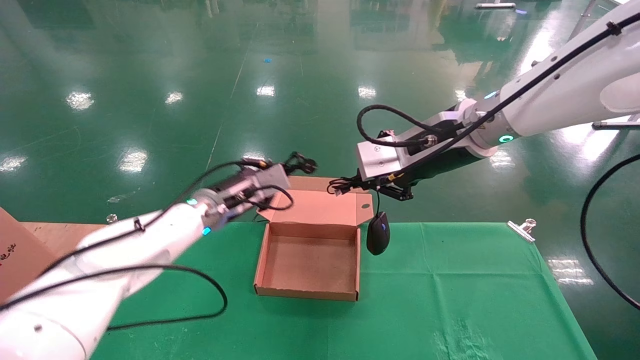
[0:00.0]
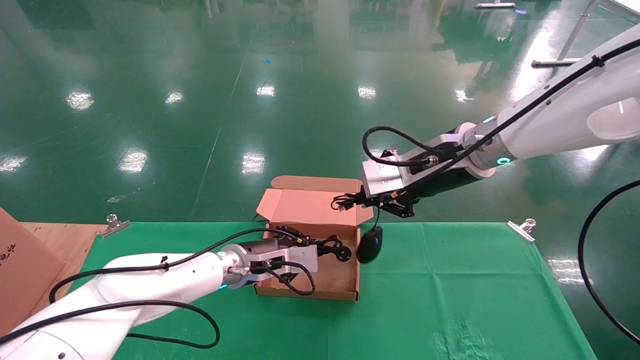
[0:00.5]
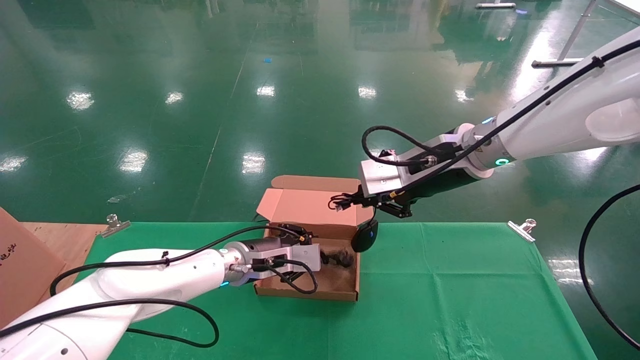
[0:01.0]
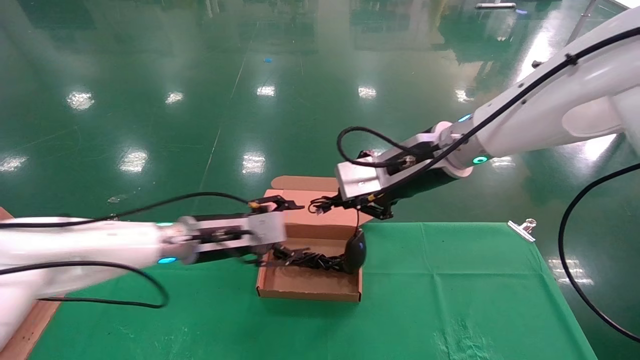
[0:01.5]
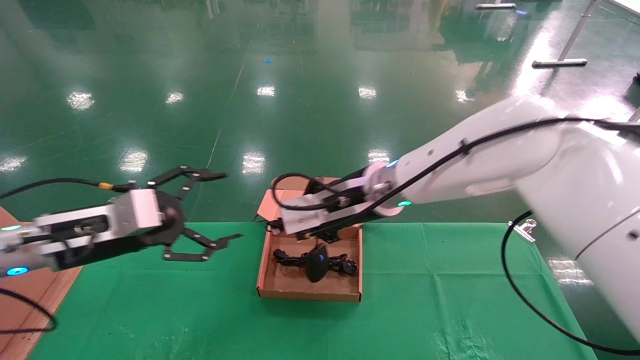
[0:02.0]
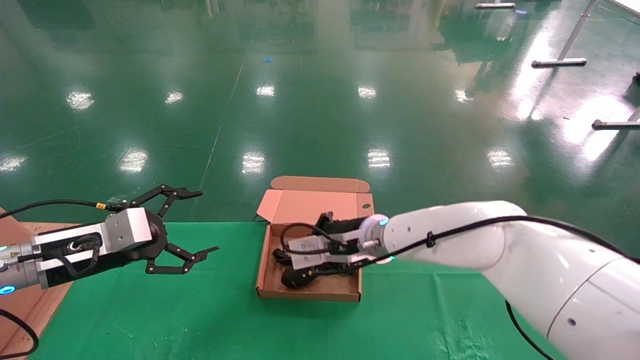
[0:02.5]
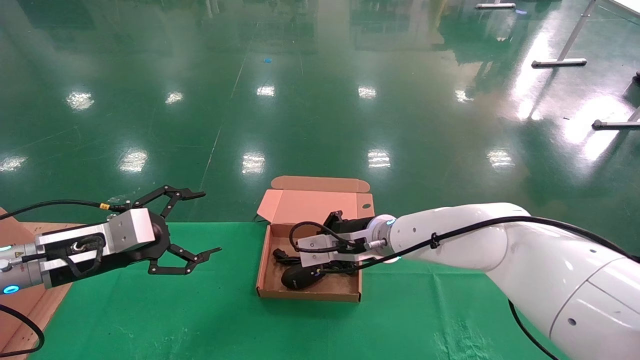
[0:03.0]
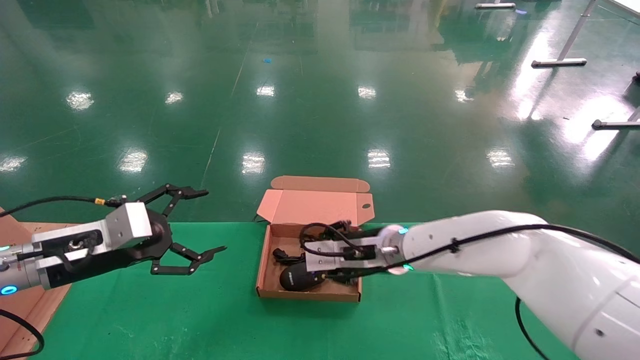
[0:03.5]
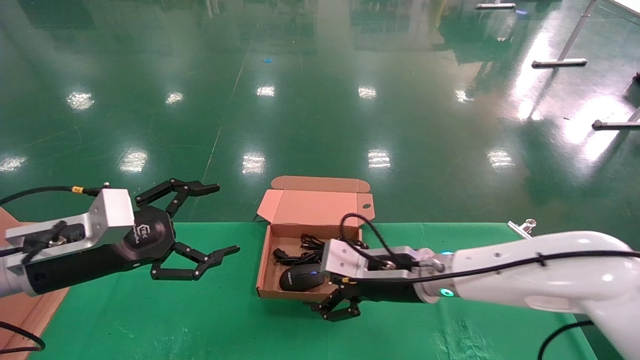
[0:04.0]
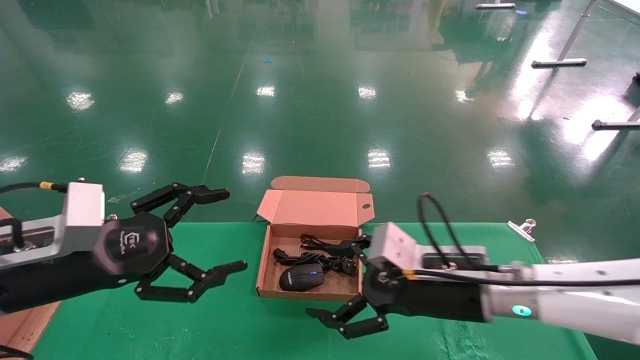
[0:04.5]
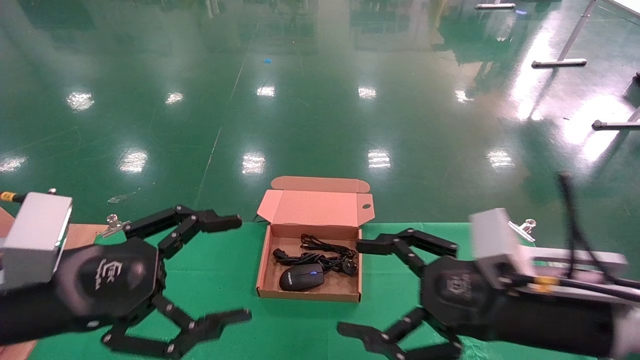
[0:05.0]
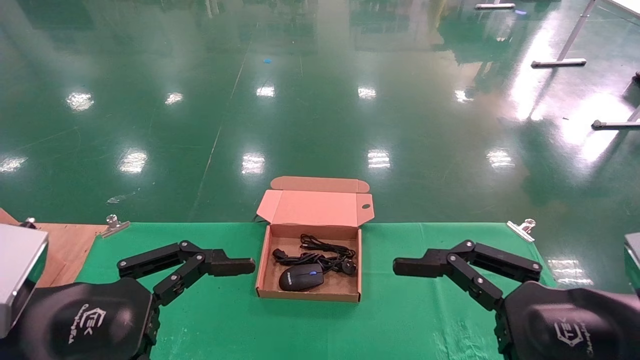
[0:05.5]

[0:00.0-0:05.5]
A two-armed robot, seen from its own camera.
Step, 0:00.0 to 0:04.5: Place the mouse and power cord into the box.
0:00.0 to 0:02.0: The left gripper moves to the left and backward, some 20 cm, and opens up, while the right gripper travels to the left and downward by about 15 cm.
0:02.0 to 0:03.5: The right gripper goes approximately 10 cm downward.
0:03.5 to 0:05.5: The left gripper moves backward and to the right, about 20 cm, while the right gripper goes roughly 30 cm backward and to the right, and opens.

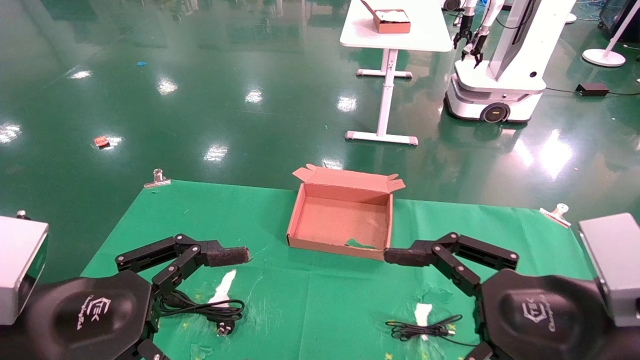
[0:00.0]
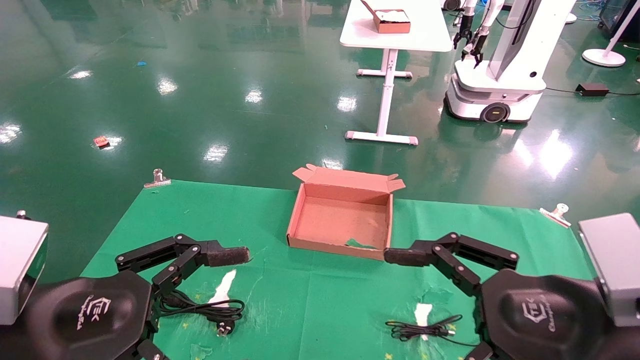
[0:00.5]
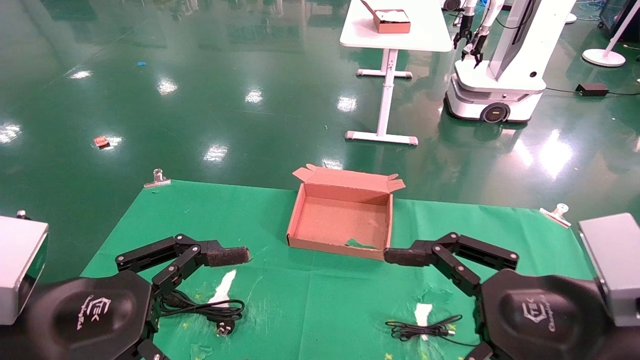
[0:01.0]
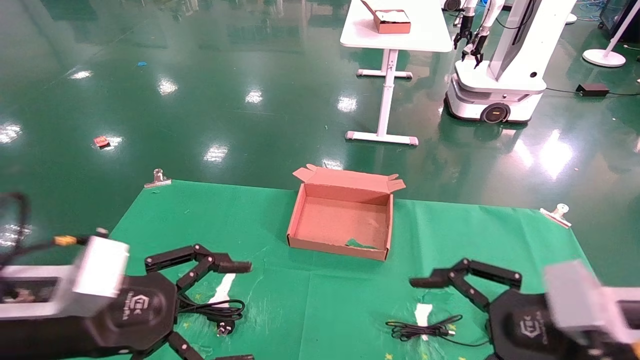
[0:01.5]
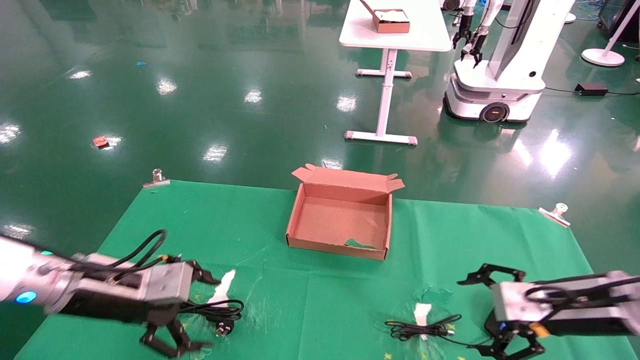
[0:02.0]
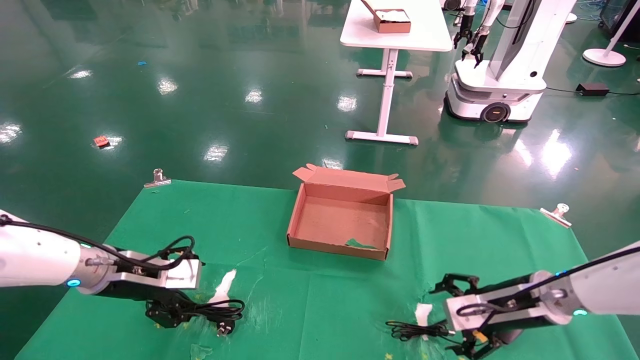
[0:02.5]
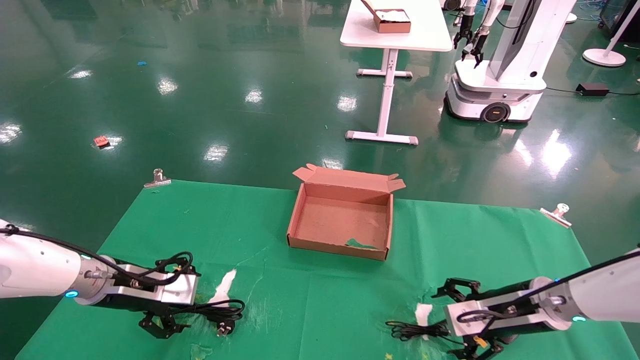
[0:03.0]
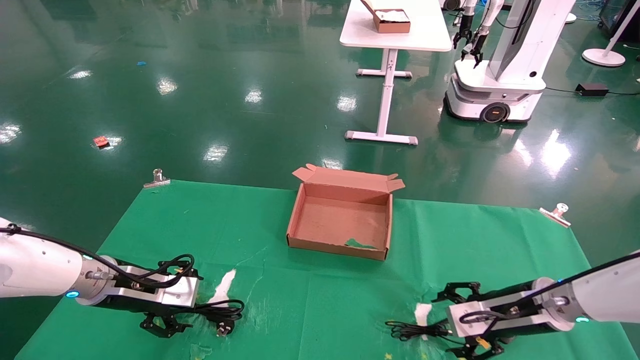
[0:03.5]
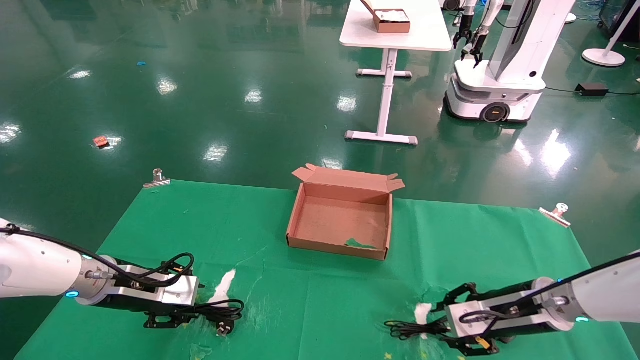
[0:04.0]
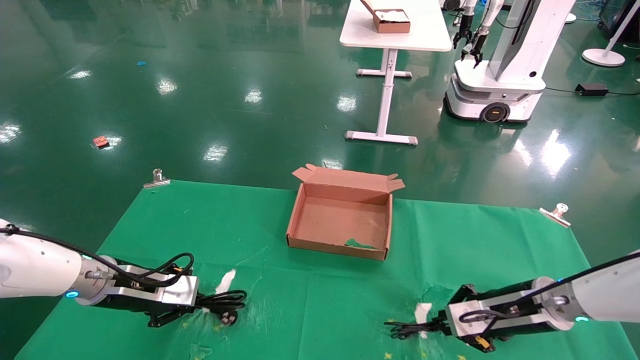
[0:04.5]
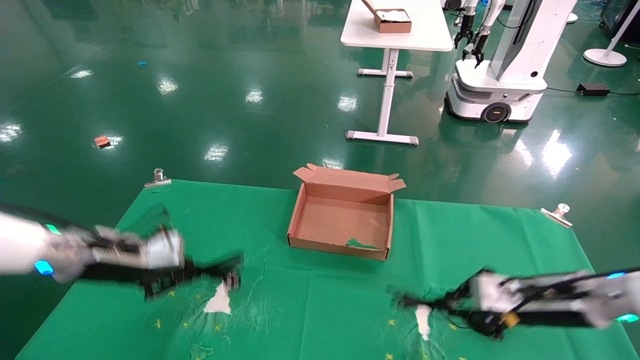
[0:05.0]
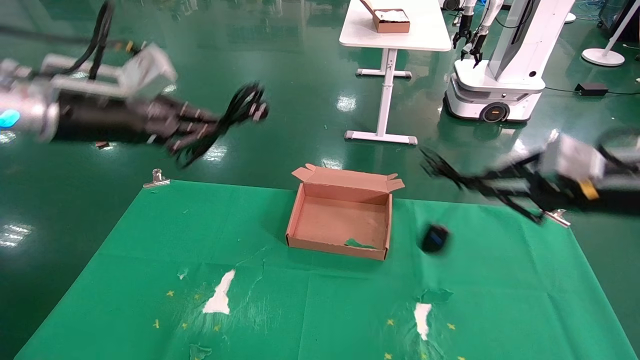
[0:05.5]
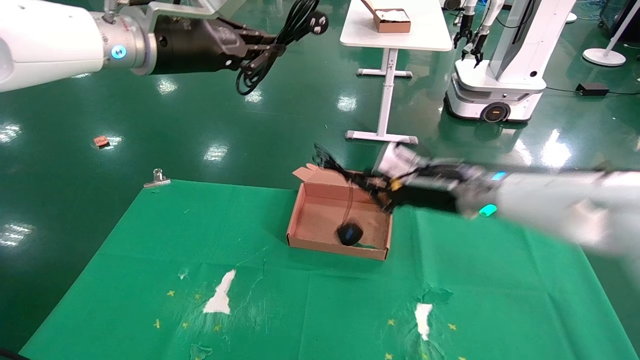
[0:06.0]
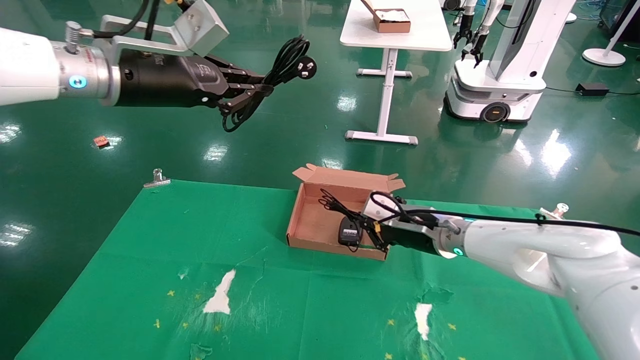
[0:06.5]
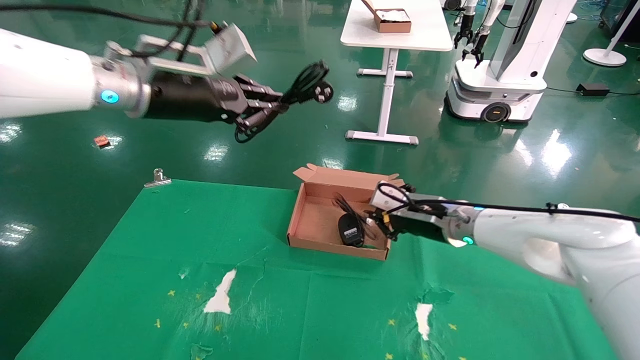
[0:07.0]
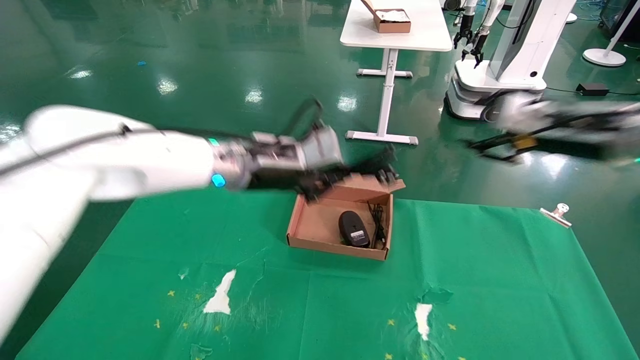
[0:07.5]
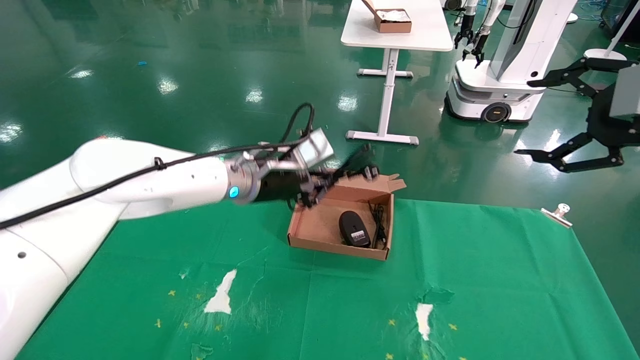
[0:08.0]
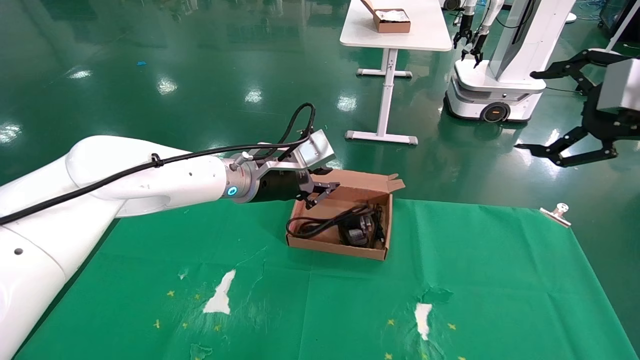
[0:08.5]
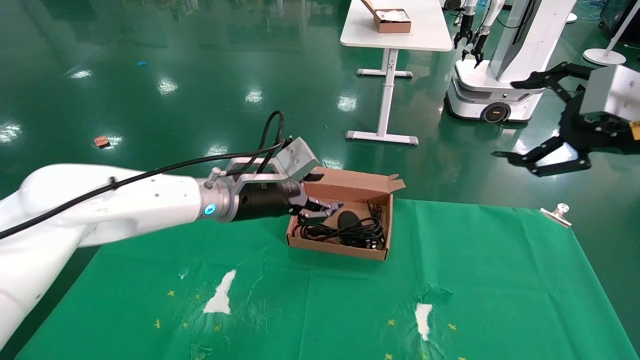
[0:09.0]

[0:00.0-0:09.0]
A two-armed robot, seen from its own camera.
Step, 0:02.0 to 0:05.5: Grab and lift both the mouse and power cord from the accessory packaging area at the same time.
0:00.0 to 0:02.0: The left gripper is displaced forward by about 20 cm. Meanwhile the right gripper moves forward, to the right and downward, approximately 20 cm.
0:02.0 to 0:04.5: Both grippers travel together forward, roughly 5 cm. The left gripper closes its fingers; the right gripper closes up.
0:04.5 to 0:07.0: The right gripper heads upward, to the left and forward, covering about 15 cm; the left gripper goes about 30 cm upward and to the right.
0:07.0 to 0:09.0: The right gripper travels backward, to the right and upward by approximately 30 cm, and opens. Meanwhile the left gripper shifts approximately 15 cm downward and to the right, and opens up.

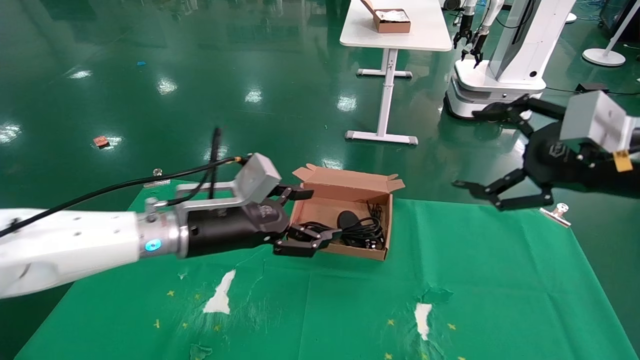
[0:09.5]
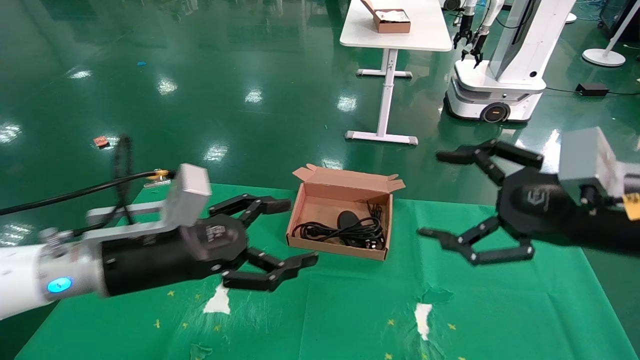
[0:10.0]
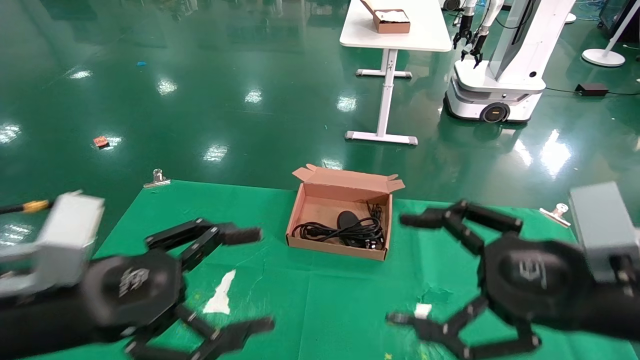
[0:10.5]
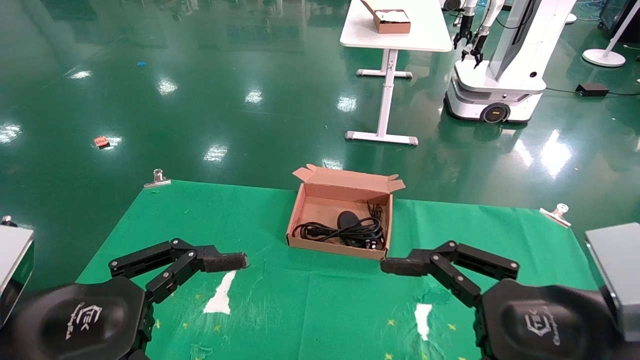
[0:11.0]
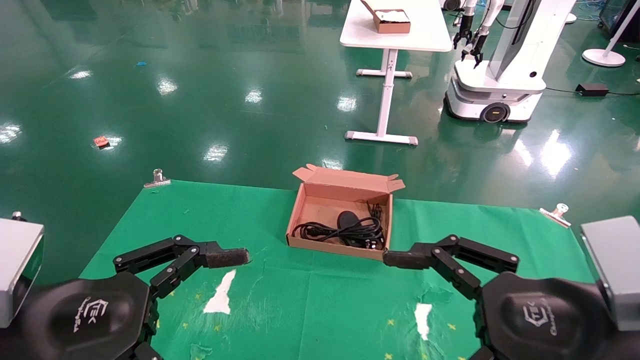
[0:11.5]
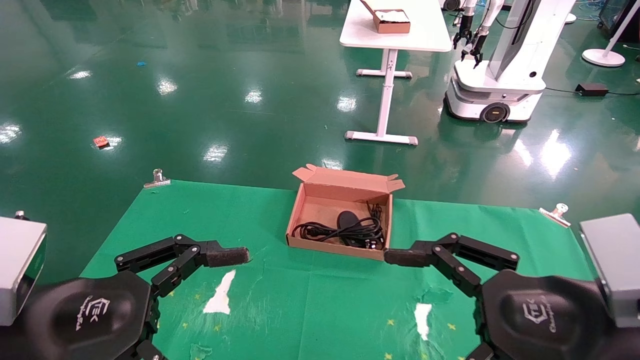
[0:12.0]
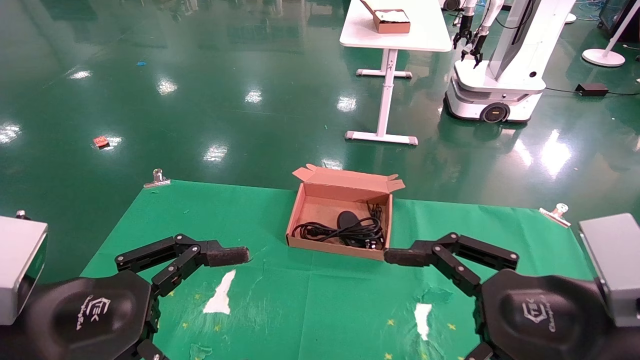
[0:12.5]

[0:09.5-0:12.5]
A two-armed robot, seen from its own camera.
0:09.5 to 0:11.0: The right gripper goes some 20 cm backward, downward and to the left; the left gripper heads backward and to the left, covering some 20 cm.
0:11.0 to 0:12.5: The two grippers keep their place.
